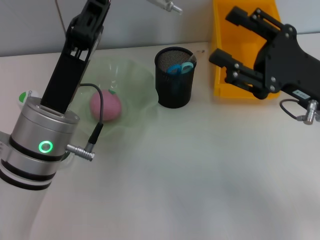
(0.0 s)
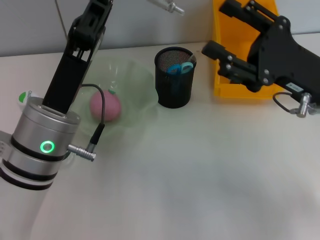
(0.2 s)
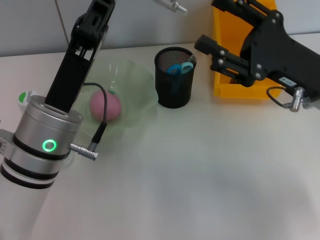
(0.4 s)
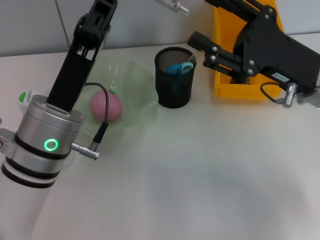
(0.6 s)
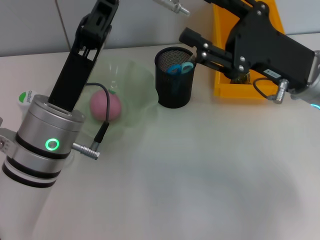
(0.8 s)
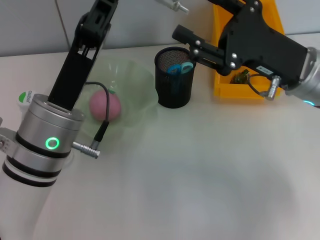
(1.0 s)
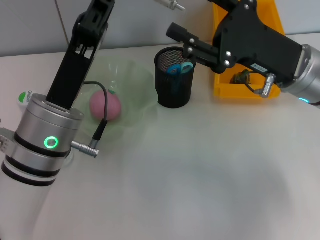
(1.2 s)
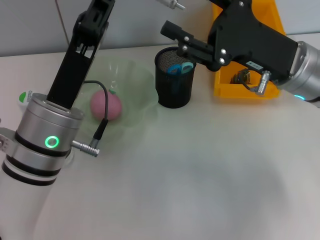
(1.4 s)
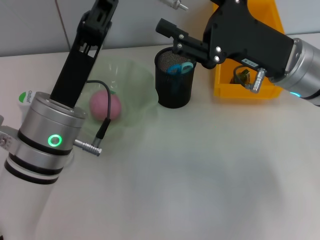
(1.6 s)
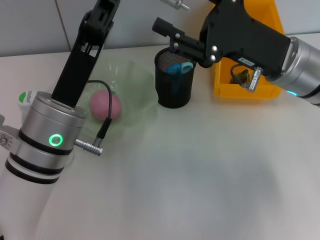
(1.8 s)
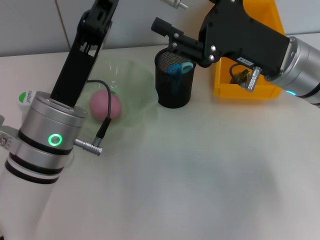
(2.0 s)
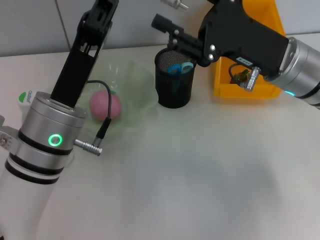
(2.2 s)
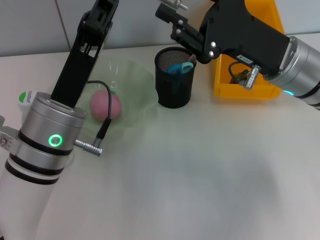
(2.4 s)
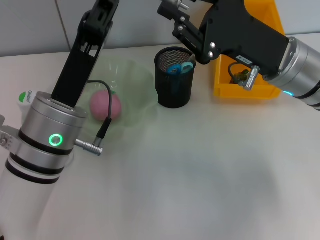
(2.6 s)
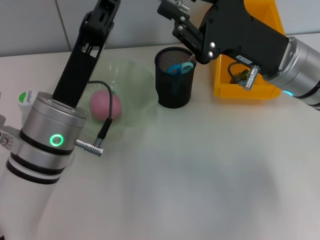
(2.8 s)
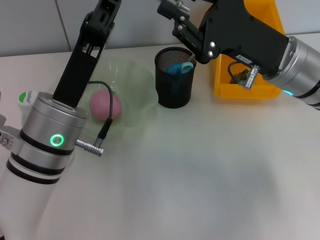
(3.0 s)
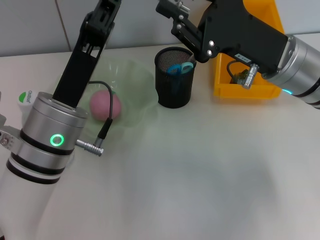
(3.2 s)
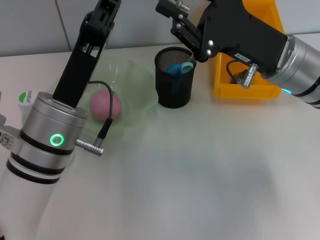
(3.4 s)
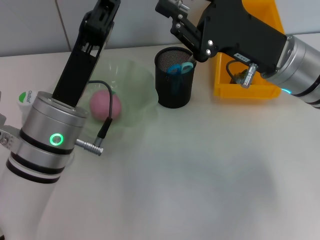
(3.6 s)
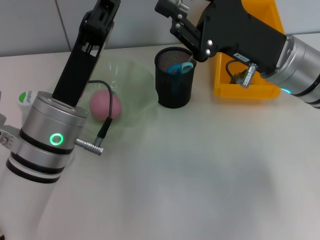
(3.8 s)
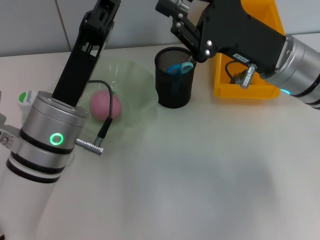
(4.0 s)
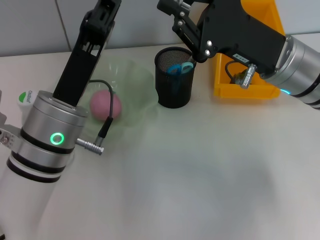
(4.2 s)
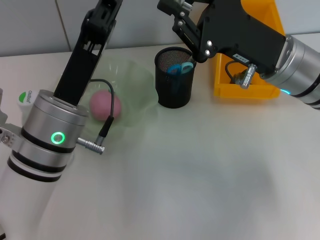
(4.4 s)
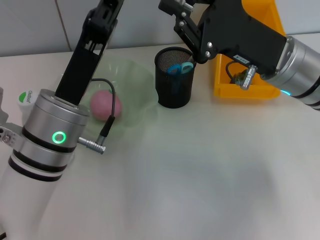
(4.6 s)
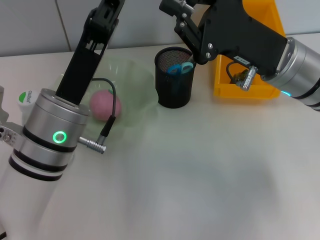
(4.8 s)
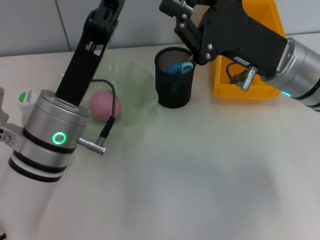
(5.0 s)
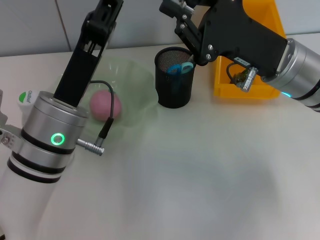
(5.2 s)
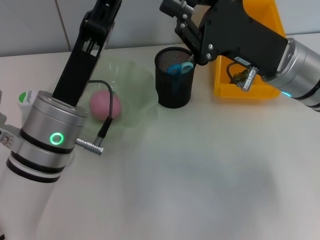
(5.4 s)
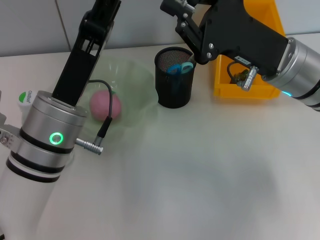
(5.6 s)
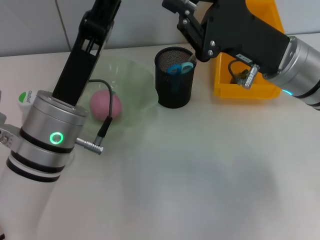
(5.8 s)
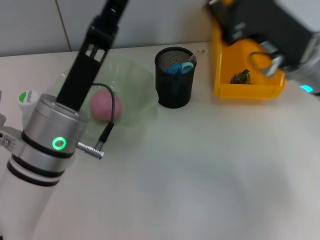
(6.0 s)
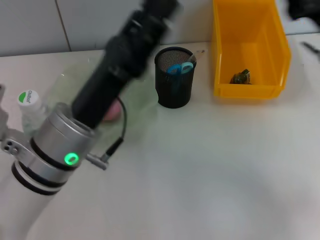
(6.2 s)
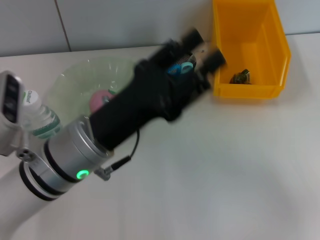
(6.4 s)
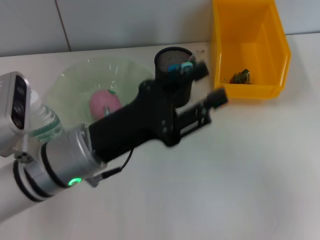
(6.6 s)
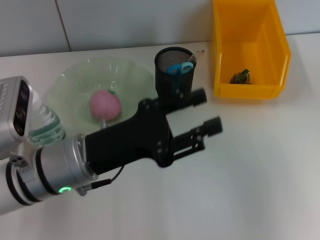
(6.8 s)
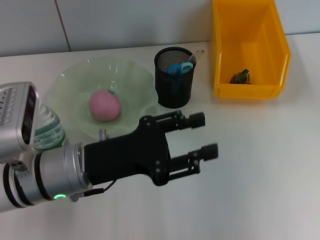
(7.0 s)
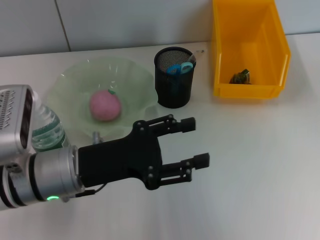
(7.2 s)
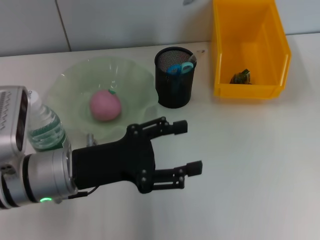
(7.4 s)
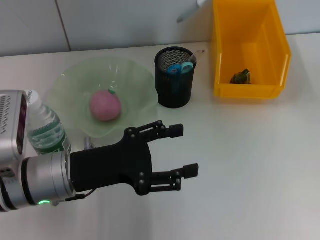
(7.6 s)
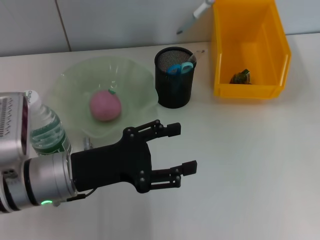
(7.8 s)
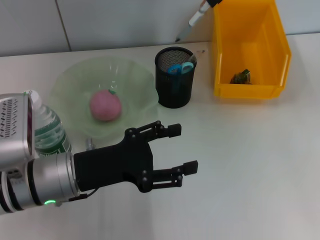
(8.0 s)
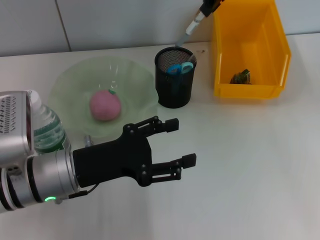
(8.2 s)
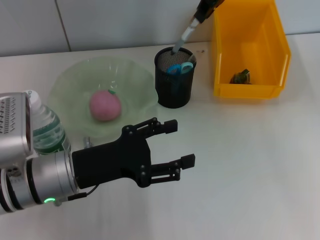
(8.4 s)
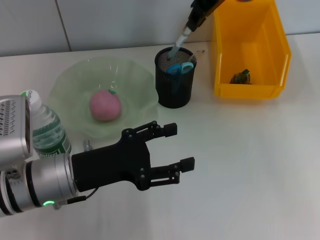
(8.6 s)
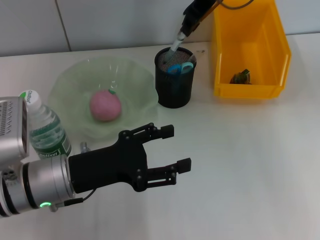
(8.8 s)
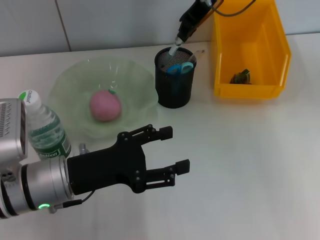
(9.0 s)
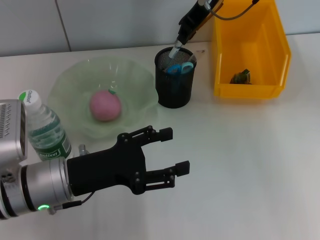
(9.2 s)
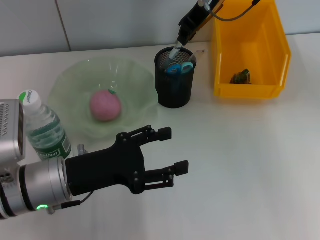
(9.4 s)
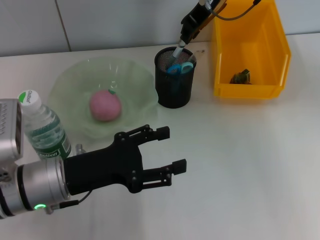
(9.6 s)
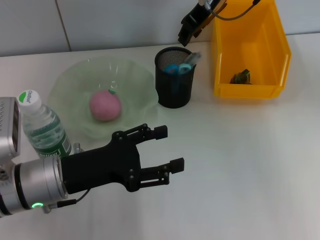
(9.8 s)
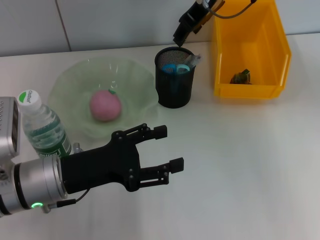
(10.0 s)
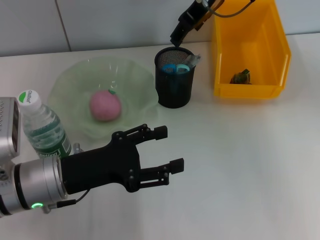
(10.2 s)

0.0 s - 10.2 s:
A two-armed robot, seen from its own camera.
Step, 0.0 s - 5.6 s: Pass the gray spring-action pen from the left hand to the right hand.
Step, 5.8 s - 10.0 s: Place the gray spring-action pen into the pen holder with the right hand.
0.0 s - 1.4 s: The right gripper ends up roughly 5 cm from where it was.
1.4 s - 3.0 s: The right gripper closes.
3.0 s - 4.4 s: Neither gripper changes place.
4.4 s - 5.8 s: The left gripper opens.
5.8 s - 7.2 s: The right gripper travels upward and to the right by some 20 cm.
7.2 s - 8.8 s: The right gripper shifts roughly 20 cm to the left and forward.
8.8 s - 10.2 s: The right gripper opens.

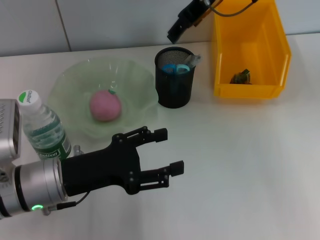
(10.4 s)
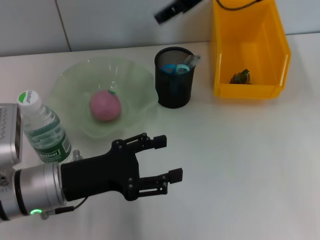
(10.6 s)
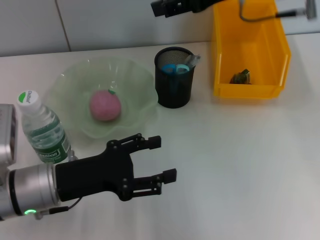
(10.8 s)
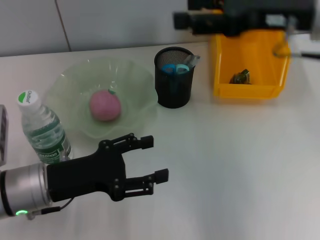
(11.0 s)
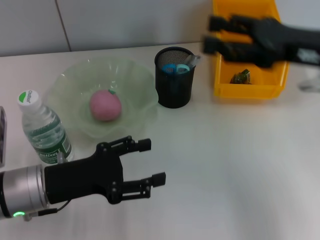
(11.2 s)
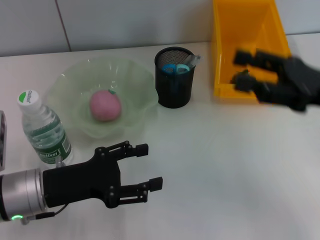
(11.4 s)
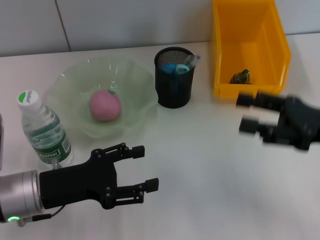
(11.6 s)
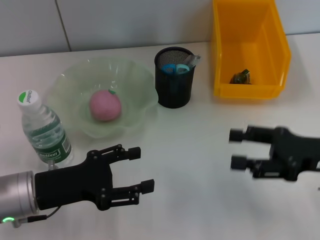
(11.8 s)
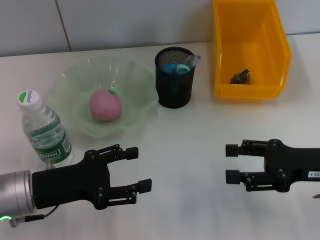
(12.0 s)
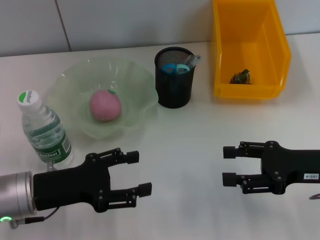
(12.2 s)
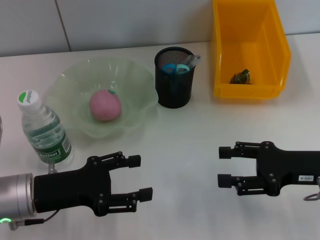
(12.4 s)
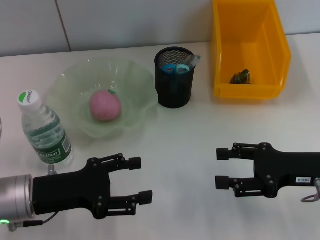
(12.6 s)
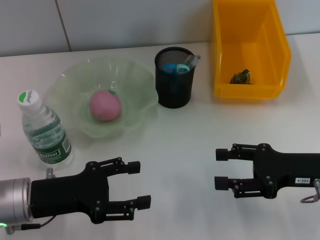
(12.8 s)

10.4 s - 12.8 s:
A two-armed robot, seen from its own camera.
10.4 s - 11.6 s: The right gripper shifts approximately 30 cm backward, to the right and downward.
11.6 s - 12.8 s: The grippers make only small movements.

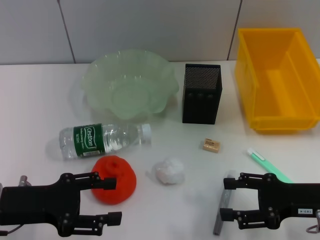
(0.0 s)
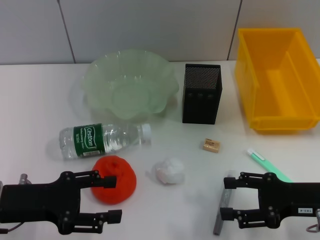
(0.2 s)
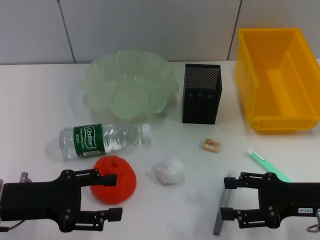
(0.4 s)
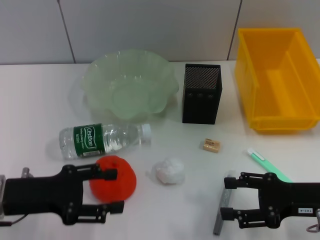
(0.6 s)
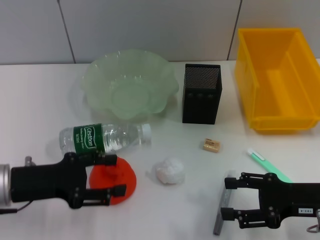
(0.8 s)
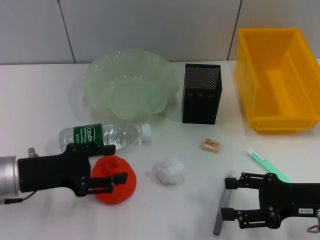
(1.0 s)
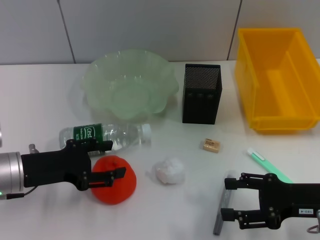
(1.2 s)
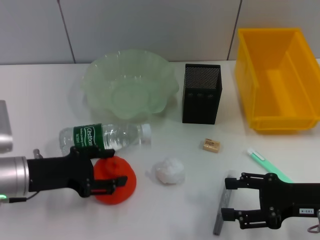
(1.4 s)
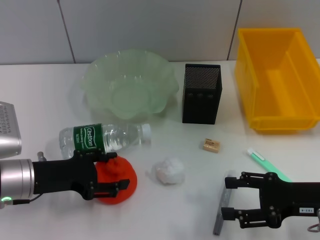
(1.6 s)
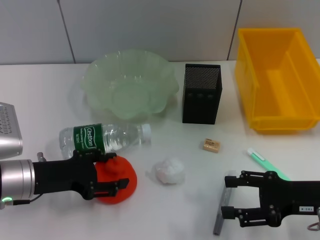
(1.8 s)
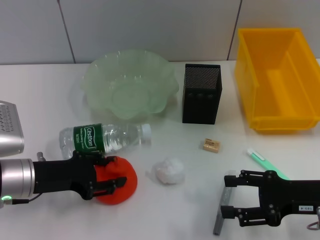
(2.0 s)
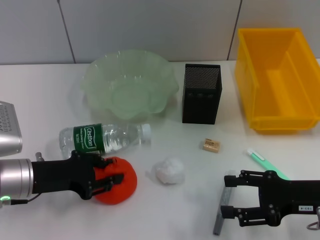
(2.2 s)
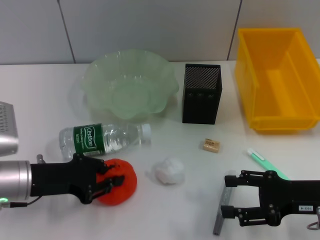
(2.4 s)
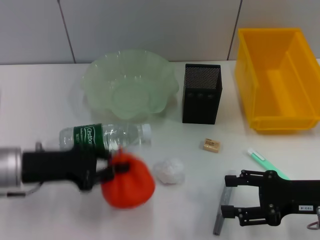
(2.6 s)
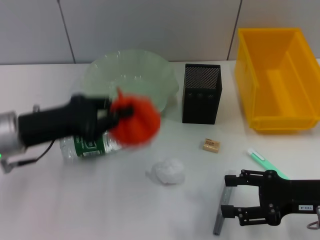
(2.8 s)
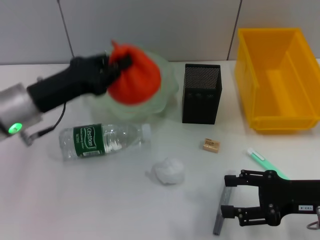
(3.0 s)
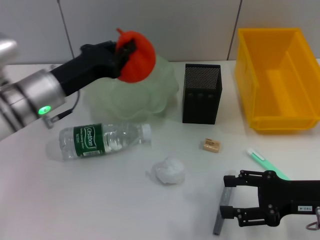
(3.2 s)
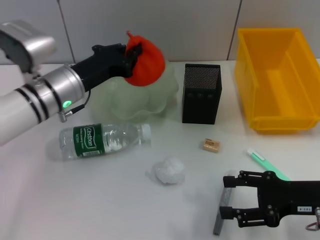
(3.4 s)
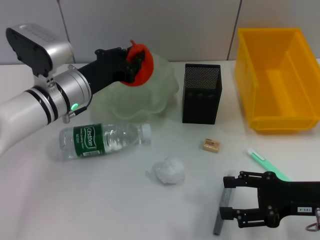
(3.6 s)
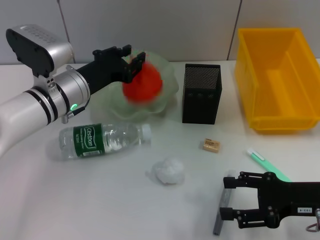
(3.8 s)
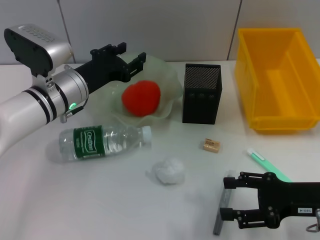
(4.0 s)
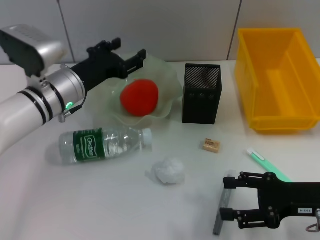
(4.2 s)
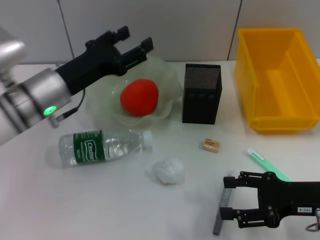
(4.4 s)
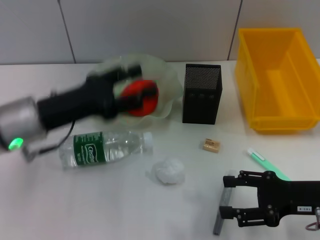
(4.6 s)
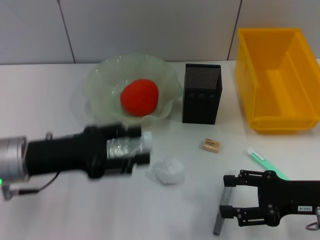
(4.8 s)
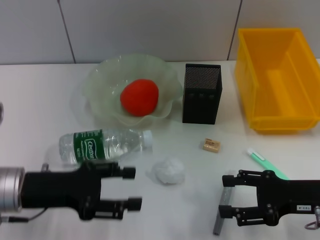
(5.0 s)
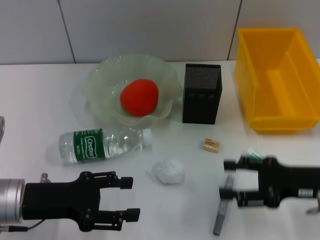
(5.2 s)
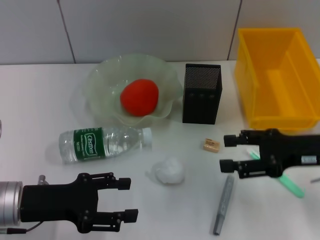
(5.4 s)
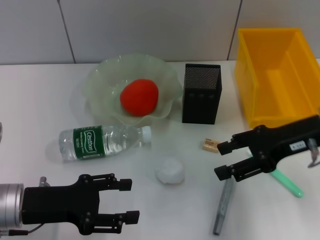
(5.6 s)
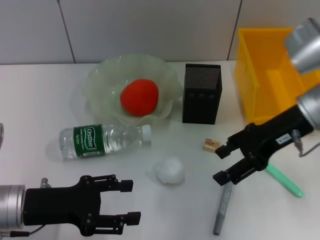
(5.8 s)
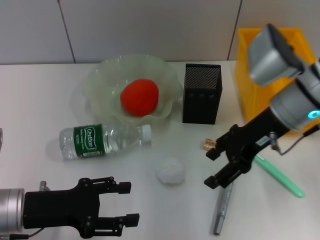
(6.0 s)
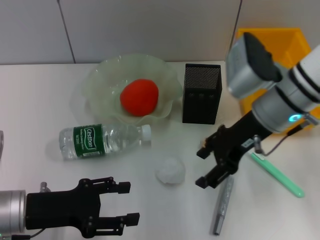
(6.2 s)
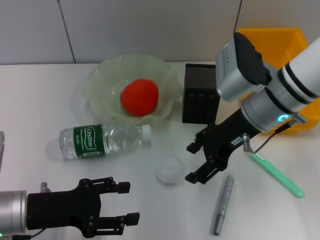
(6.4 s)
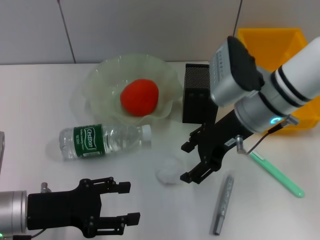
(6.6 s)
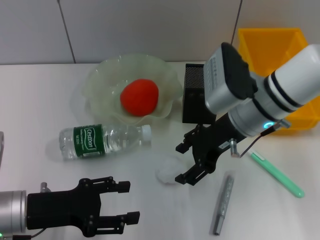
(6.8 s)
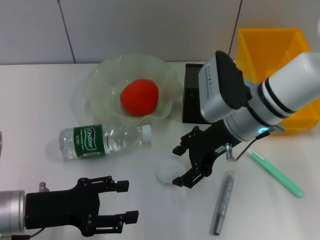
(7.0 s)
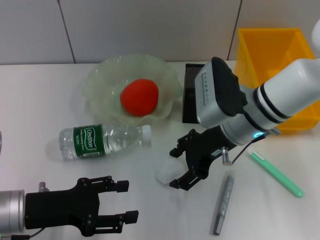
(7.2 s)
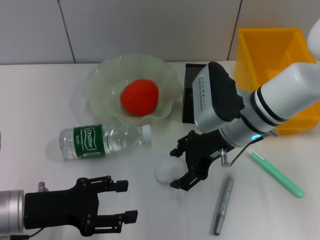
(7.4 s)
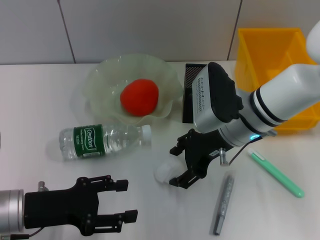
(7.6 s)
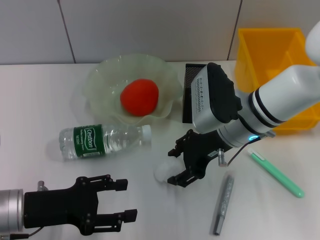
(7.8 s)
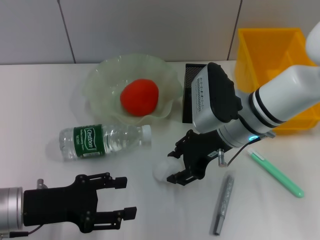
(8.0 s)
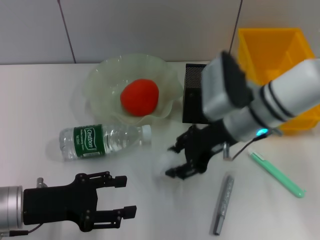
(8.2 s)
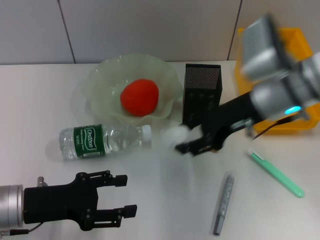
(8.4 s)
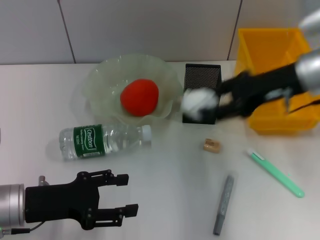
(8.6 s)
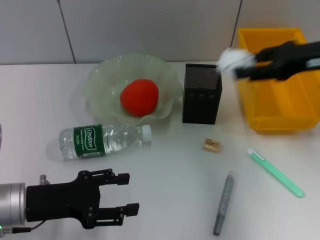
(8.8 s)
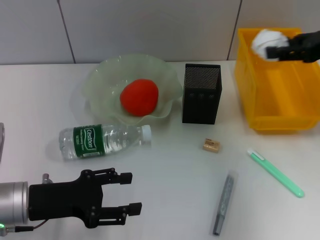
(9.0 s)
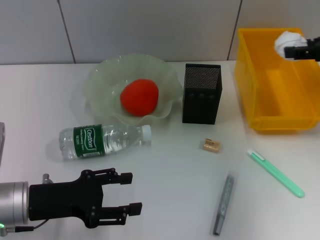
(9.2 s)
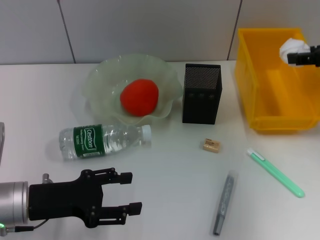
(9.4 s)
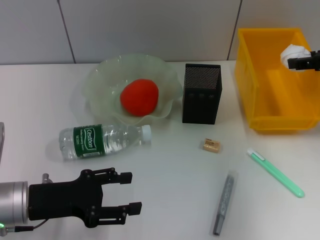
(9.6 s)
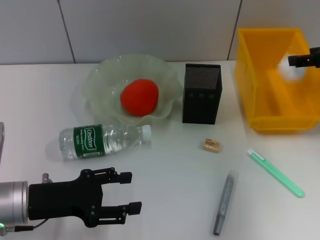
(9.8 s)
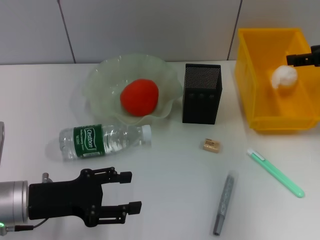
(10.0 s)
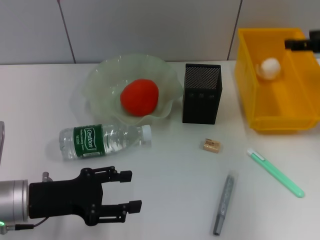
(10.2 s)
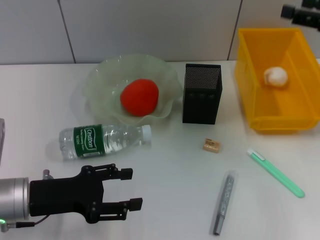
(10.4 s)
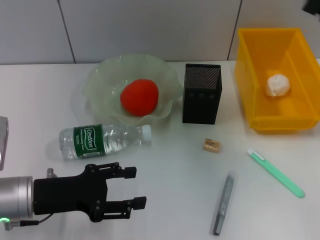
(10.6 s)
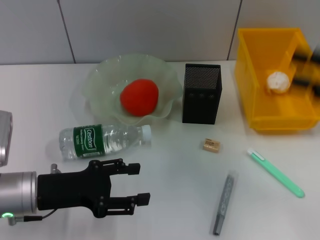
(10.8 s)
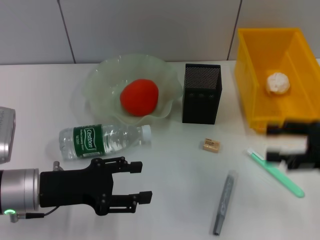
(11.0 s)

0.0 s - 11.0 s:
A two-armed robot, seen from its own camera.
Step, 0.0 s - 2.2 s: Grab the orange with the left hand.
Step, 2.4 s - 3.8 s: Place the orange into the fruit bowl with the left hand.
Step, 4.0 s - 7.8 s: Grab the paper ball with the right hand.
Step, 8.2 s - 10.0 s: Place the paper ball into the trash can with the right hand.
0.0 s - 1.6 s: The left gripper changes place by roughly 5 cm.
1.6 s - 3.2 s: The left gripper travels forward and upward by some 10 cm, and closes.
3.2 s - 4.8 s: The left gripper heads backward, covering approximately 10 cm, and opens.
4.8 s - 6.2 s: The right gripper shifts some 20 cm to the left, forward and upward, while the left gripper moves downward, approximately 5 cm.
6.2 s - 7.8 s: The right gripper shifts by approximately 5 cm.
7.8 s - 9.4 s: The right gripper moves to the right and upward, some 25 cm.
9.4 s - 11.0 s: The right gripper shifts some 15 cm backward and downward, and opens its fingers.
